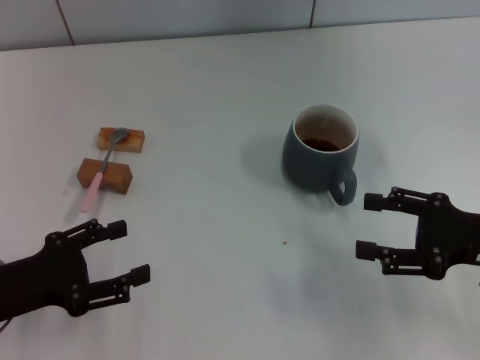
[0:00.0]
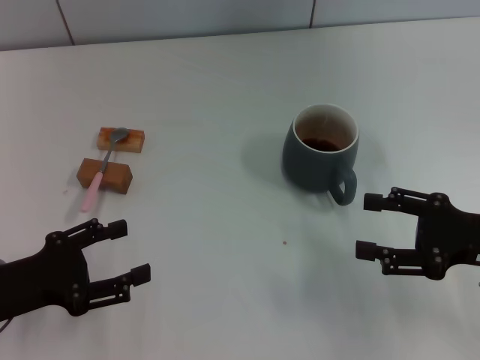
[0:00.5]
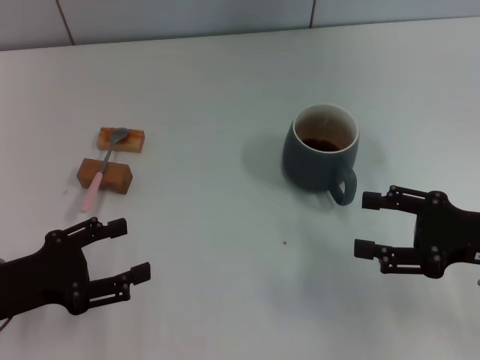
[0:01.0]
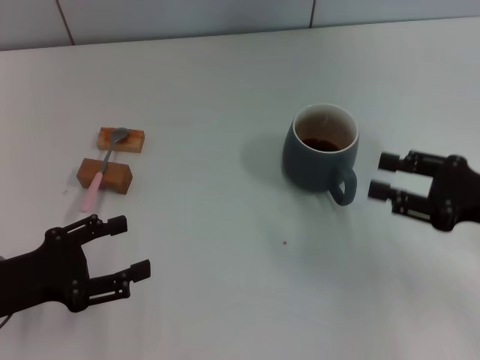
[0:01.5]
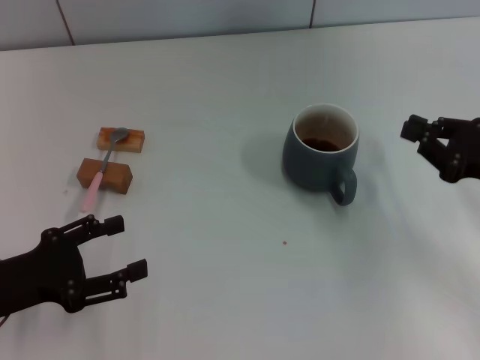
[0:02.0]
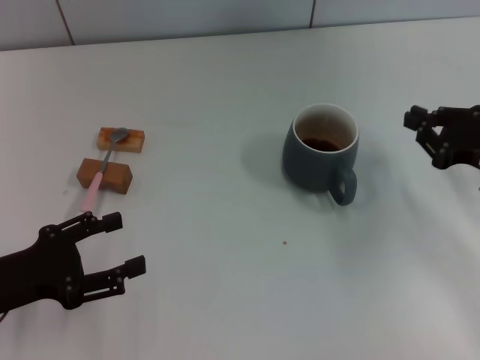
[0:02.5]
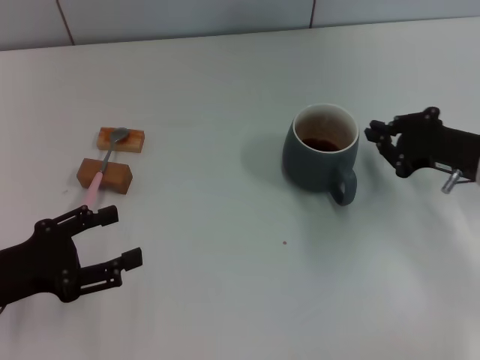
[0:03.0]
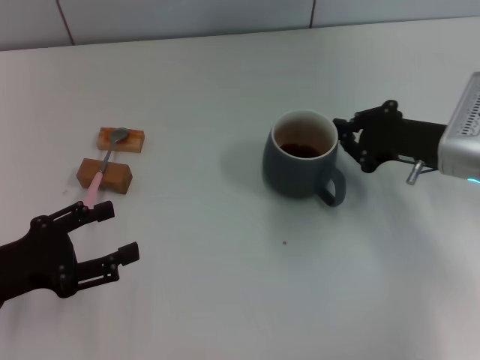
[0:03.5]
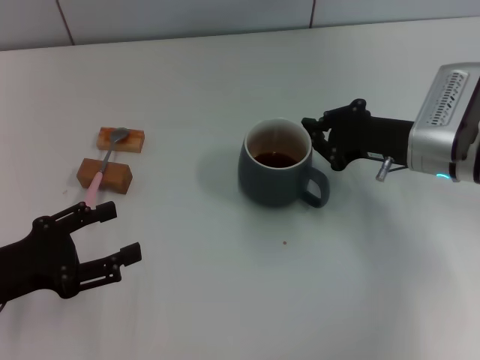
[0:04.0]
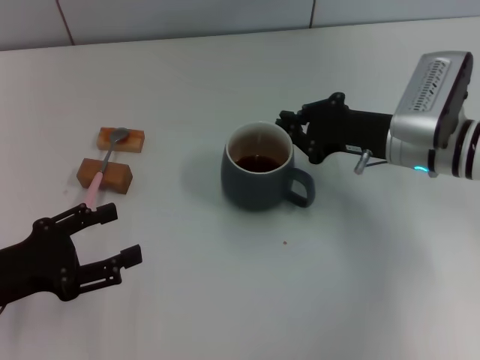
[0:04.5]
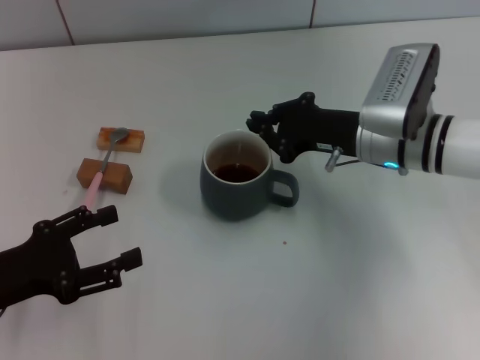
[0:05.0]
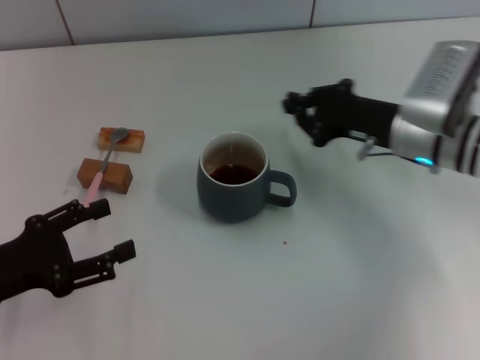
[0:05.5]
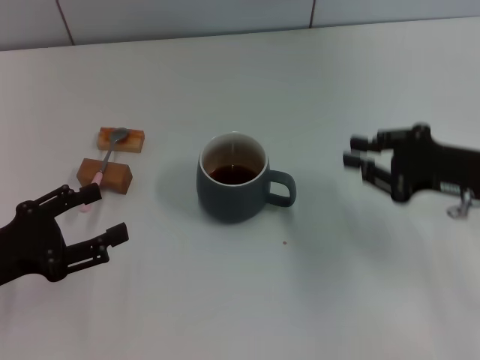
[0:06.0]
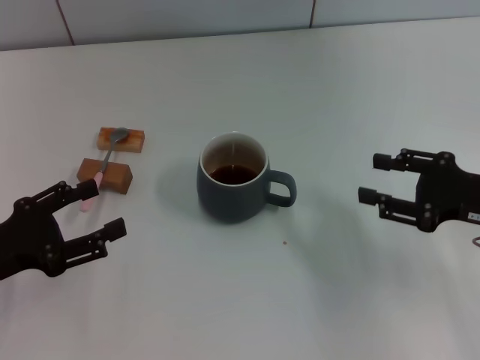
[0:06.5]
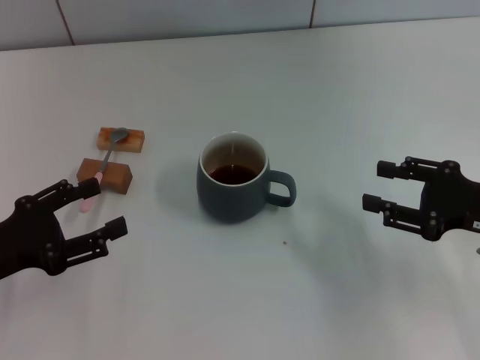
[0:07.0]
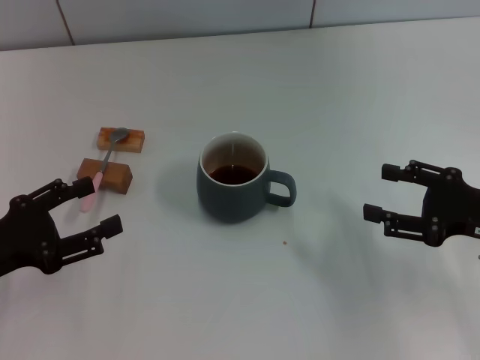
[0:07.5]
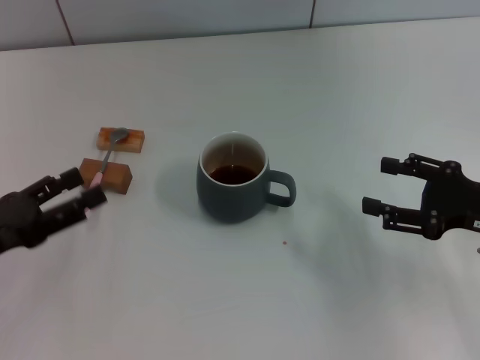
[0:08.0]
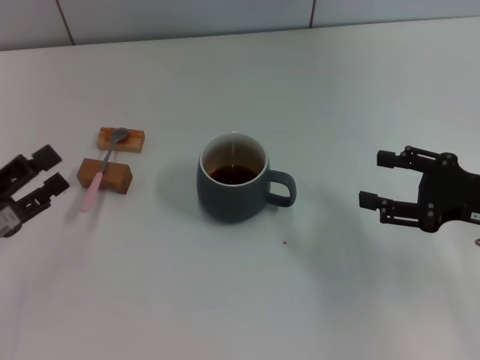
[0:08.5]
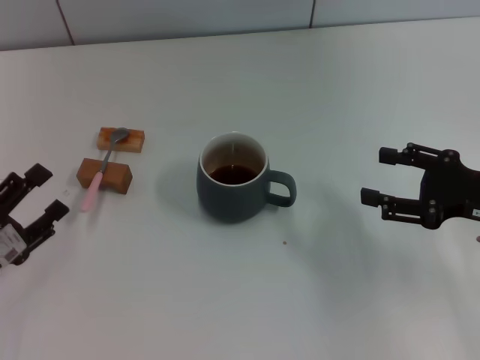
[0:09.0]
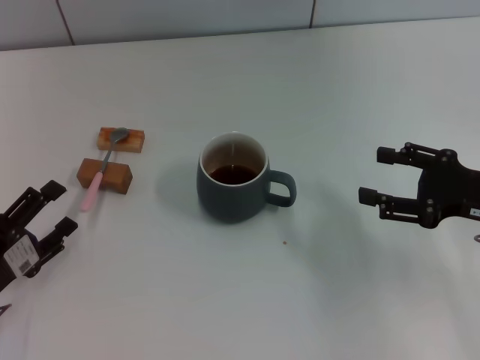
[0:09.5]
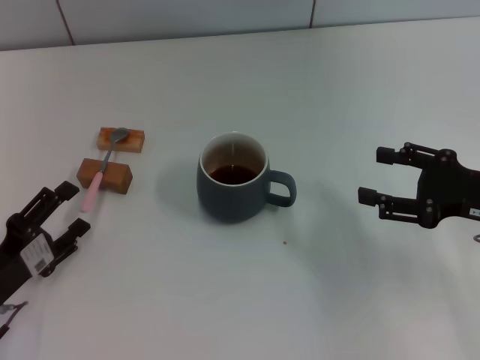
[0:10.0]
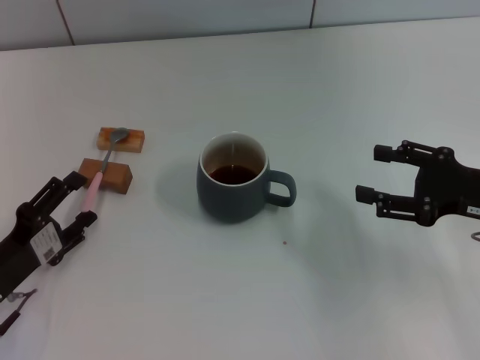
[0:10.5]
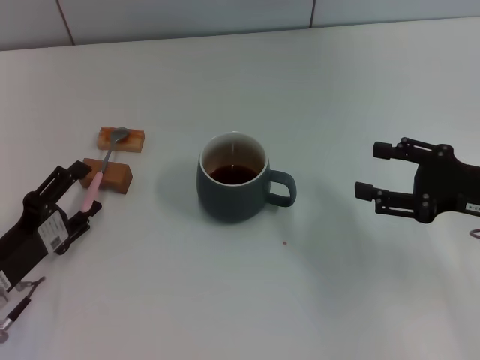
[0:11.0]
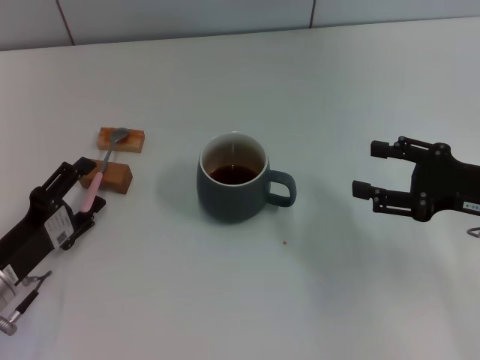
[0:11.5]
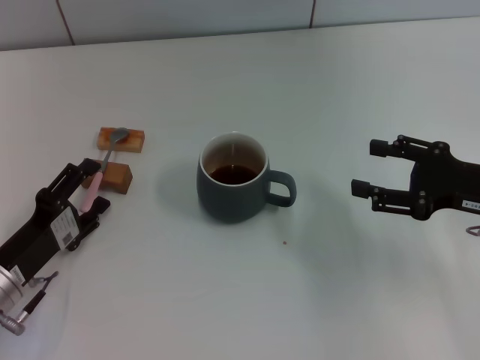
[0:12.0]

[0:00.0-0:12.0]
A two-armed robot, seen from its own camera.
Task of the whole recording: Move the grey cup to the center, lift the pink spoon, stir it three times in the cup, and put the spoon into the cup.
Step, 0:00.0 to 0:05.0: Move the cup with coffee to the center of view with the right gripper.
0:00.0 to 0:02.0: The right gripper closes its fingers.
0:02.0 to 0:04.0: The right gripper goes roughly 15 cm to the left and forward, and closes.
0:04.0 to 0:06.0: The right gripper is displaced to the right and backward by roughly 10 cm.
0:06.0 to 0:08.0: The right gripper opens.
0:08.0 to 0:10.0: The left gripper goes some 5 cm downward.
0:10.0 to 0:12.0: The grippers stay close to where they were, moving slightly.

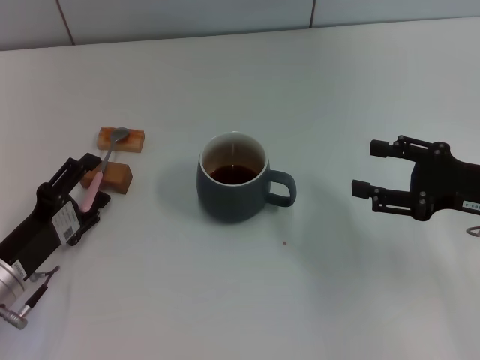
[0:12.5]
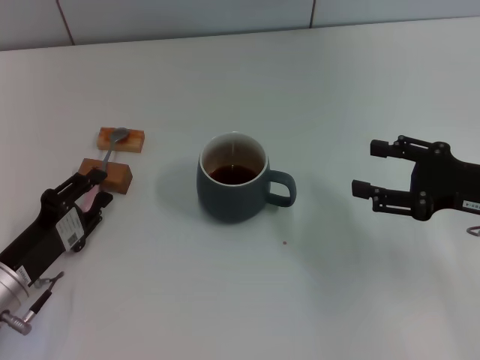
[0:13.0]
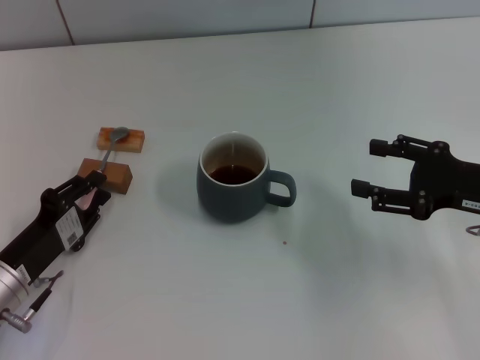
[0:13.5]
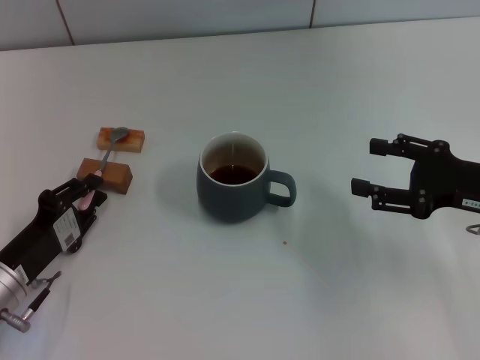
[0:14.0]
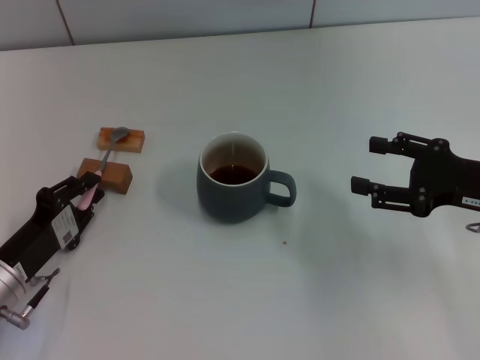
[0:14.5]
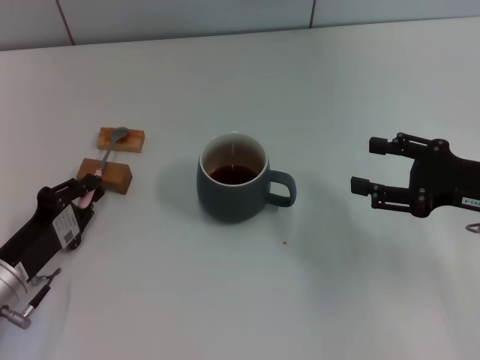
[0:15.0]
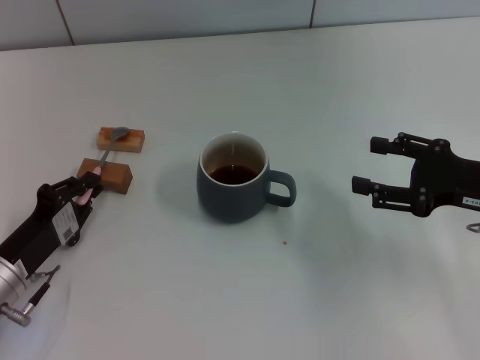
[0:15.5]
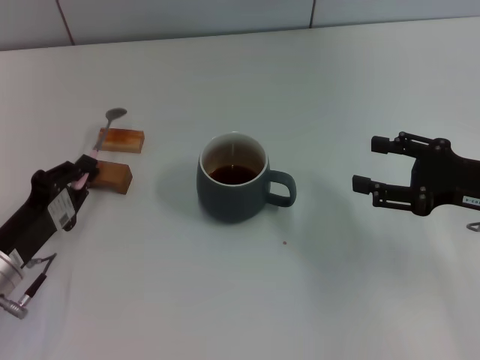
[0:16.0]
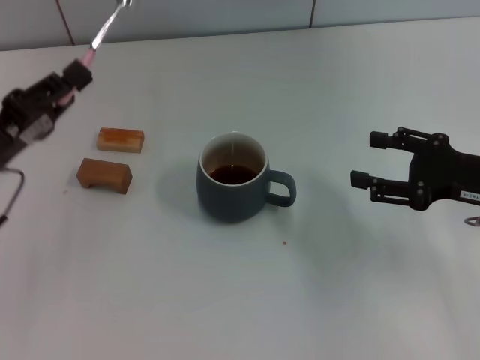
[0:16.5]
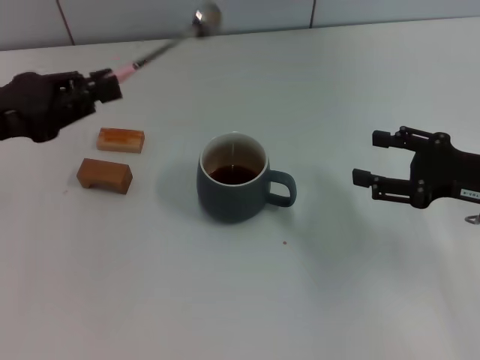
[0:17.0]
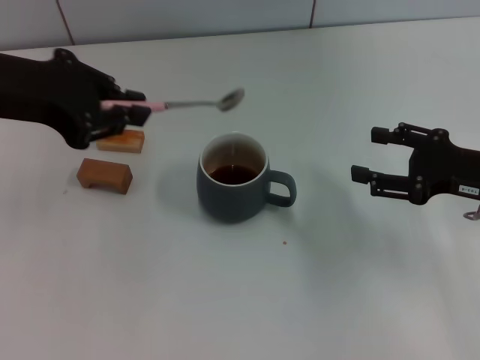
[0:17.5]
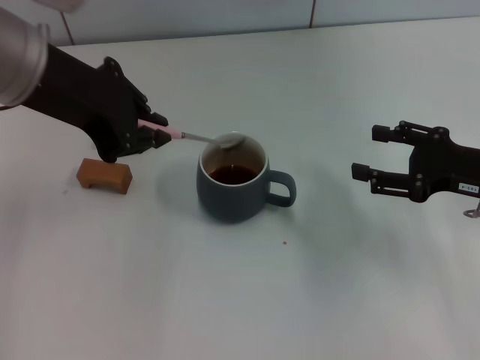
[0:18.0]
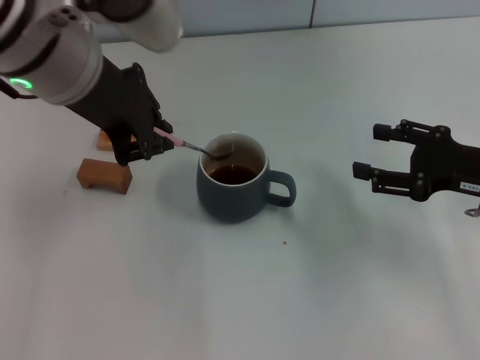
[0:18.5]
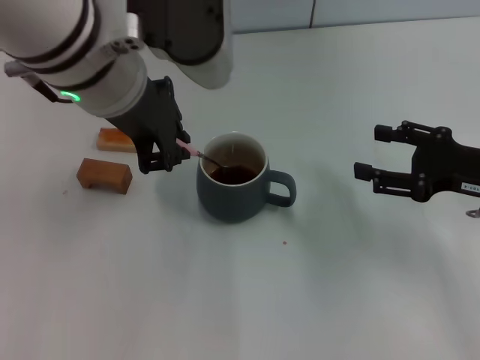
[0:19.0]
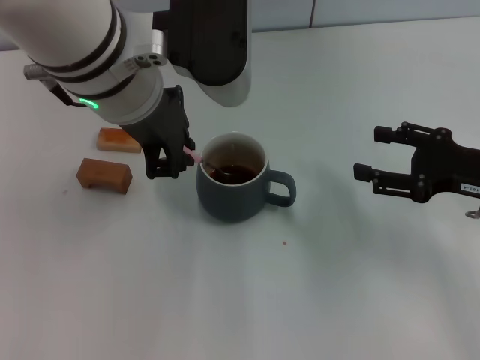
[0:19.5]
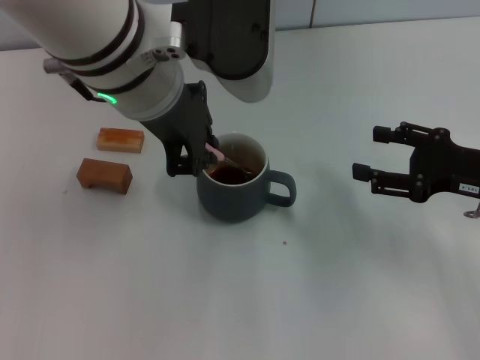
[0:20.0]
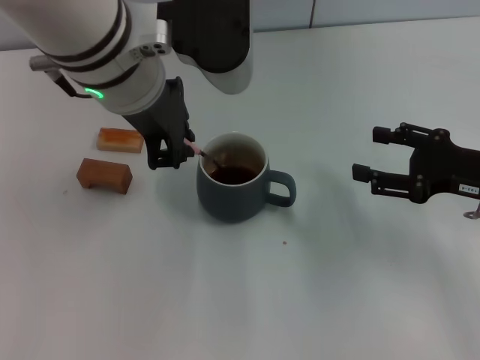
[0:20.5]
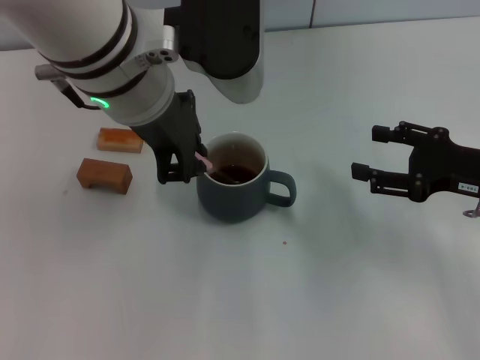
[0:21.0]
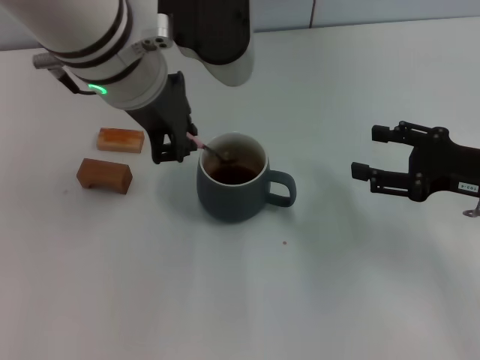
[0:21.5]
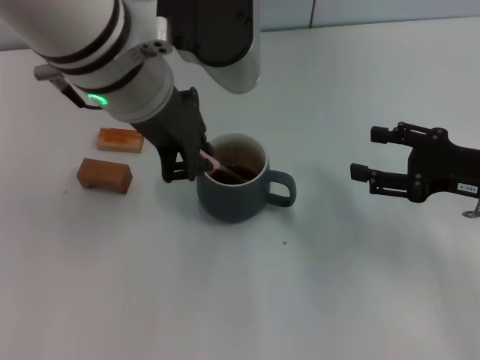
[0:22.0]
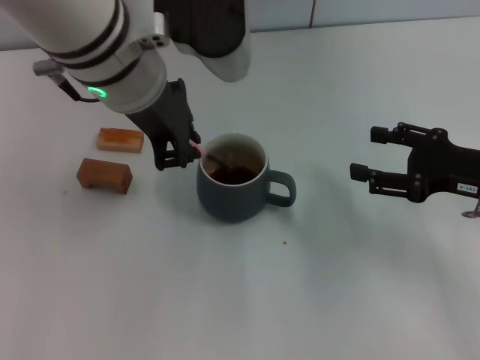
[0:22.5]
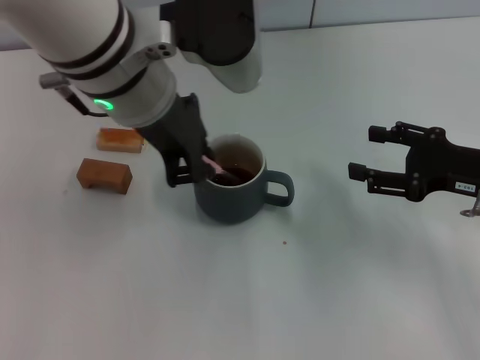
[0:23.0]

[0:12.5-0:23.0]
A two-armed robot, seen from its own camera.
Task of the whole recording: Move the grey cup to the center, lift the pink spoon, stir it three times in the cup, and put the spoon into the cup.
Step, 0:12.5 to 0:15.5: Pick up the spoon with the left gripper.
0:12.5 to 0:14.5: The left gripper closes up.
0:14.5 to 0:16.5: The left gripper heads upward, covering about 10 cm.
0:16.5 to 0:19.0: The left gripper heads to the right and upward, covering about 25 cm.
0:19.0 to 0:23.0: The grippers make only small movements.

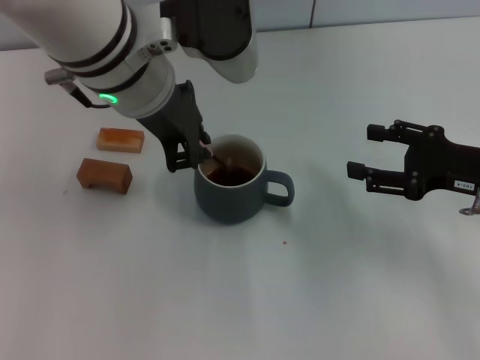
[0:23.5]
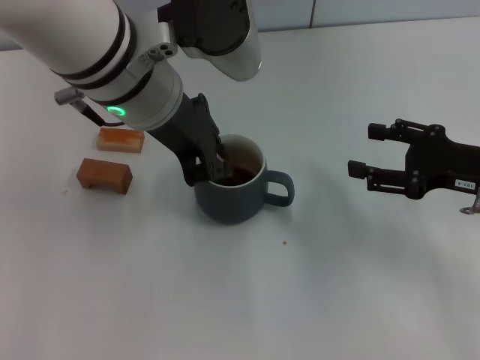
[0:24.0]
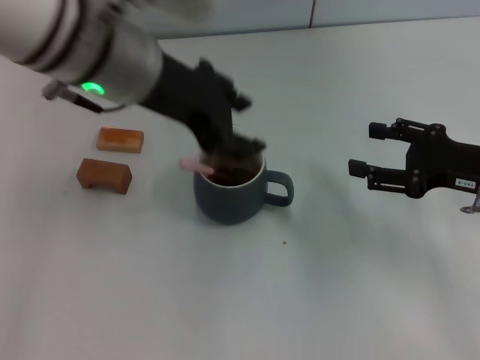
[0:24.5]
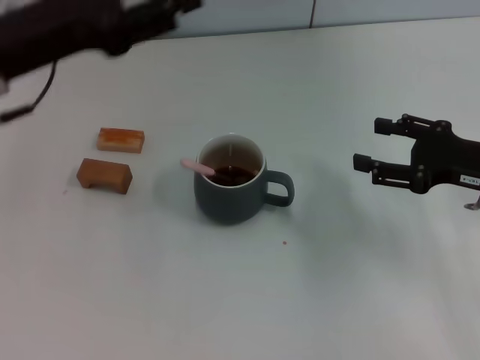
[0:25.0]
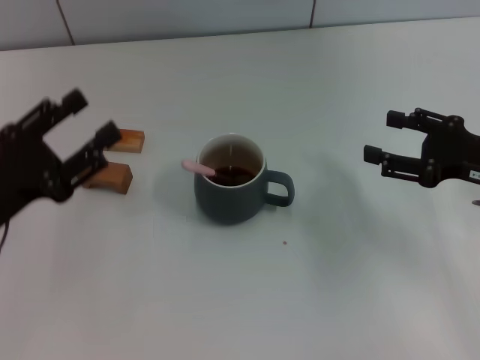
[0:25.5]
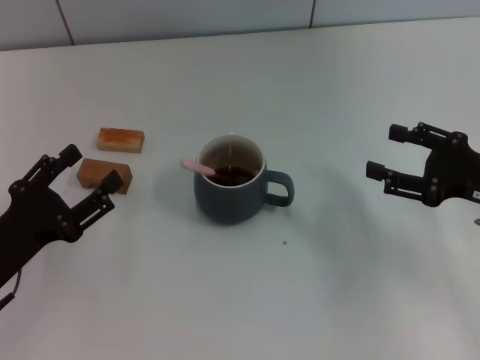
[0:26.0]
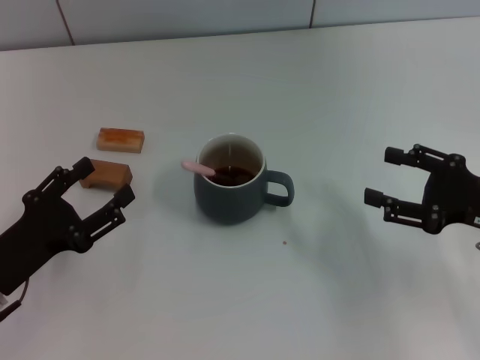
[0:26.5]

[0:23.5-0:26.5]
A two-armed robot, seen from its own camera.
Task of the whole recording: Move the grey cup to the center, lift the pink spoon, stir it three times in the cup, and put the spoon into the cup.
0:23.5 to 0:25.0: The left gripper is displaced to the left by approximately 15 cm, and opens.
0:25.0 to 0:26.5: The left gripper shifts about 20 cm downward and backward.
